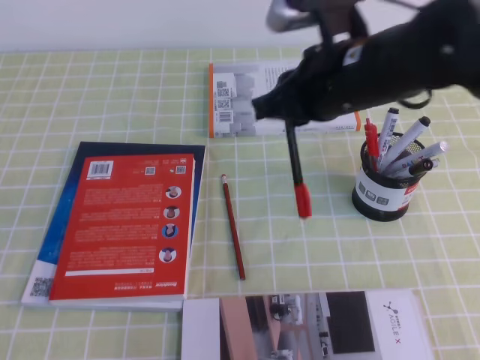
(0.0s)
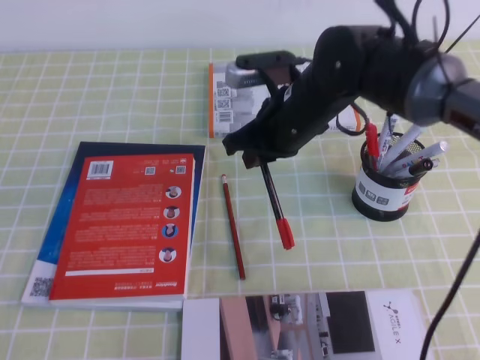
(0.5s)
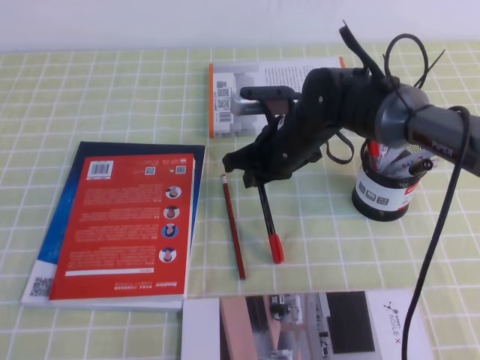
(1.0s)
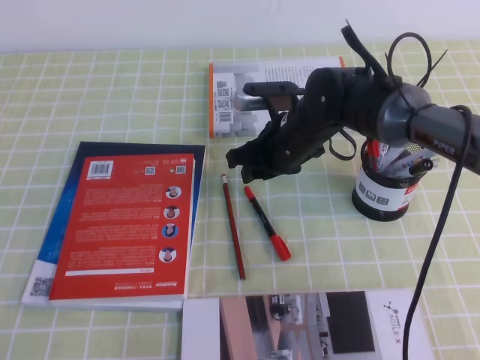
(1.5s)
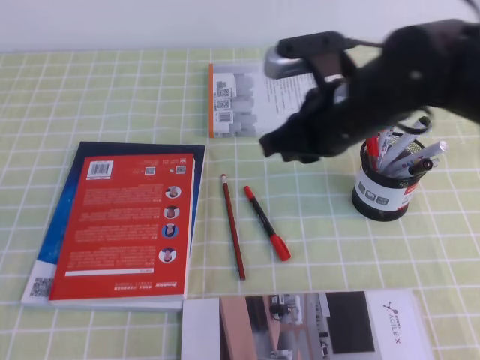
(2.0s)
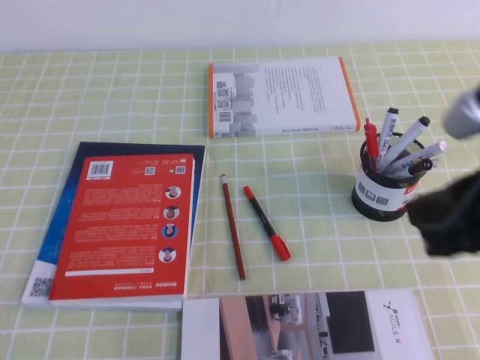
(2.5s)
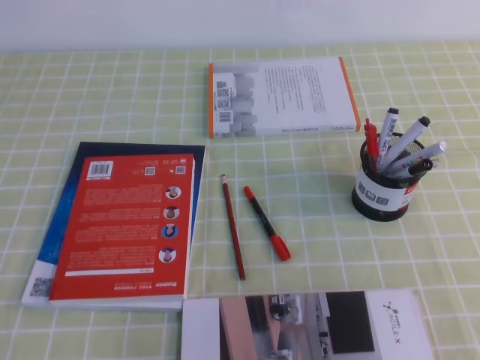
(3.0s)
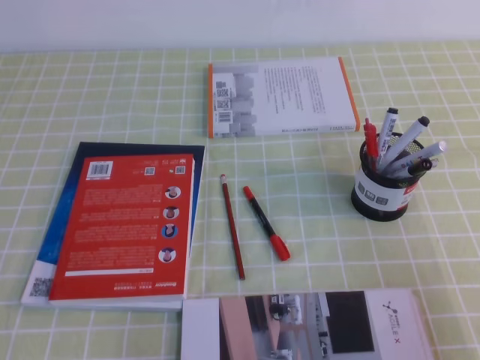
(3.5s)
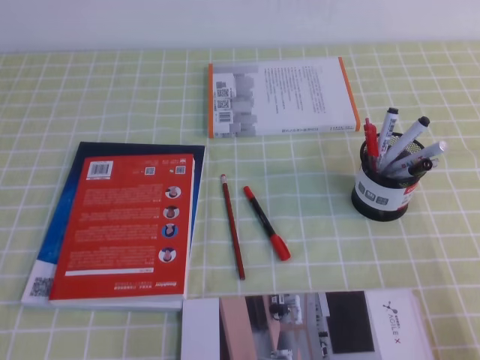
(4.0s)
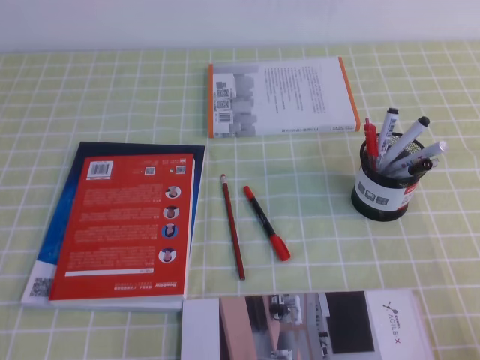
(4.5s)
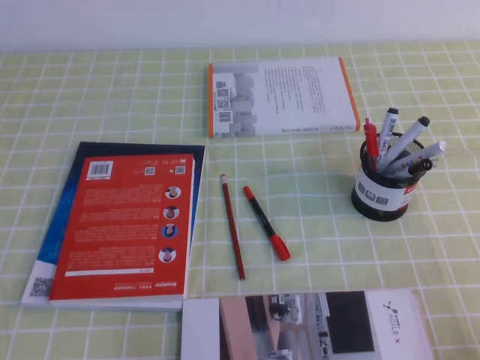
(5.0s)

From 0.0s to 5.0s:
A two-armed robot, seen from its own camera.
Step, from 0.0s to 5.0s: Pick up the pen from the pen holder.
From 0.0s to 2.5s: The right gripper goes about 15 cm backward and to the right, and opens and closes again.
From 2.5s to 5.0s: The right gripper travels downward, to the right and backward by roughly 25 cm.
